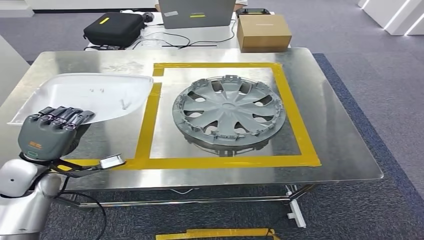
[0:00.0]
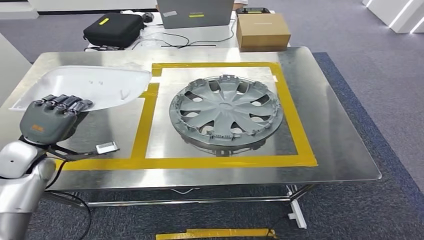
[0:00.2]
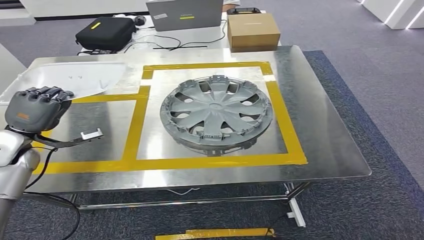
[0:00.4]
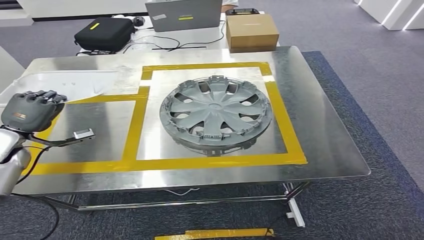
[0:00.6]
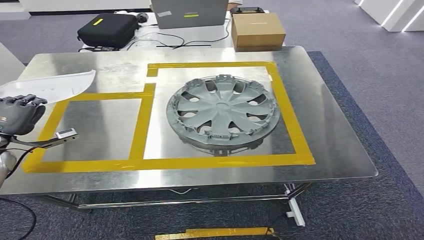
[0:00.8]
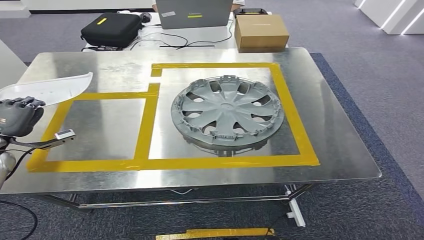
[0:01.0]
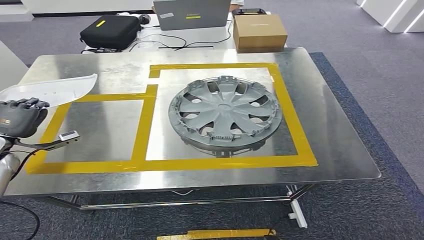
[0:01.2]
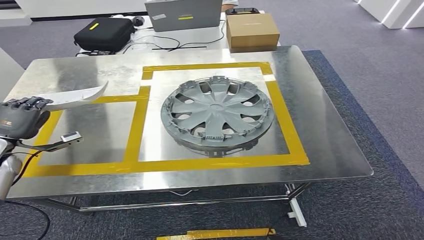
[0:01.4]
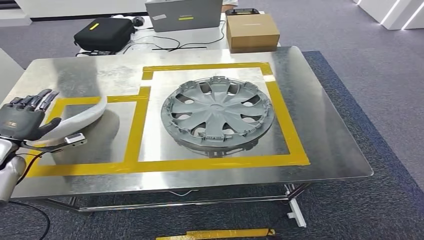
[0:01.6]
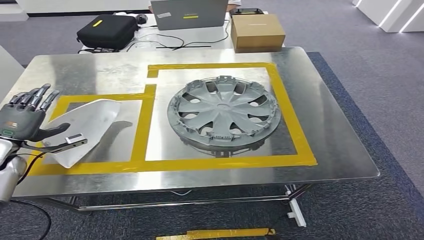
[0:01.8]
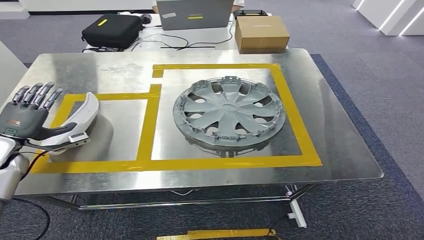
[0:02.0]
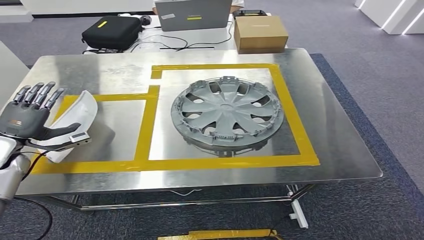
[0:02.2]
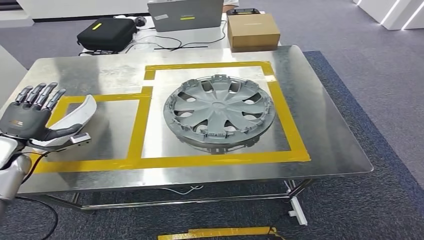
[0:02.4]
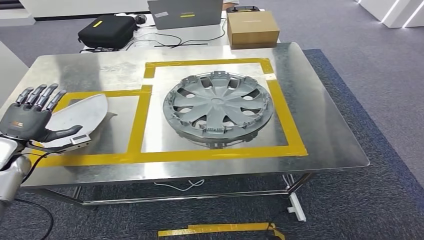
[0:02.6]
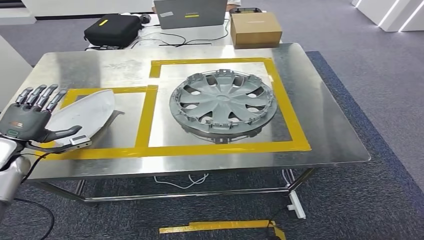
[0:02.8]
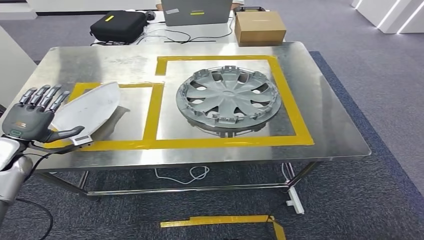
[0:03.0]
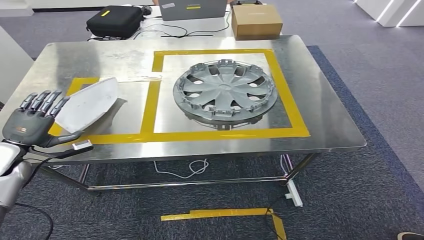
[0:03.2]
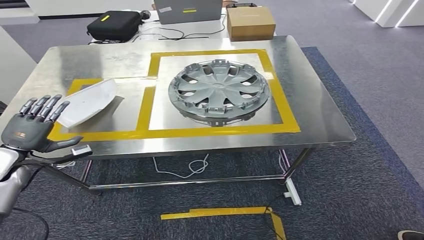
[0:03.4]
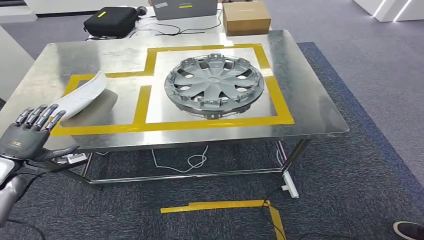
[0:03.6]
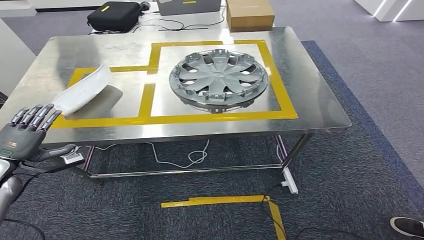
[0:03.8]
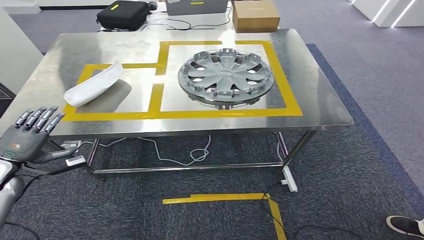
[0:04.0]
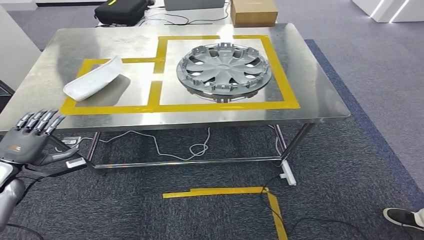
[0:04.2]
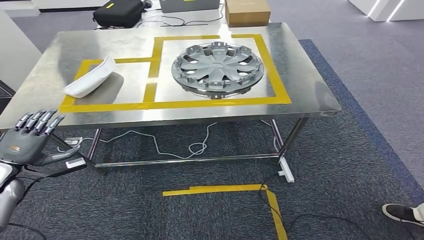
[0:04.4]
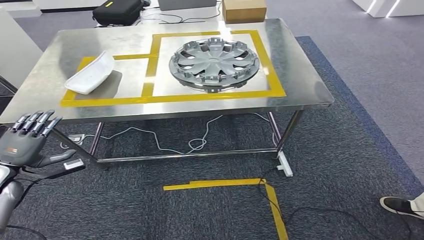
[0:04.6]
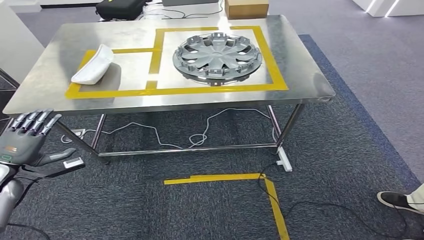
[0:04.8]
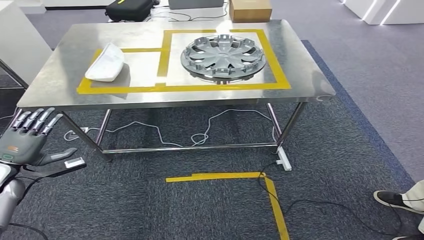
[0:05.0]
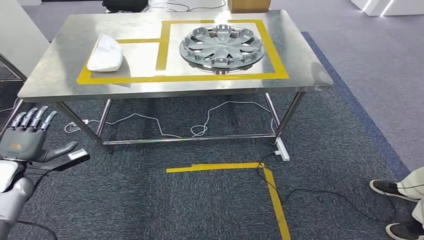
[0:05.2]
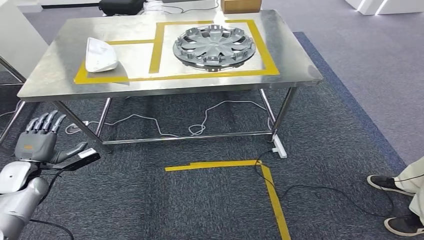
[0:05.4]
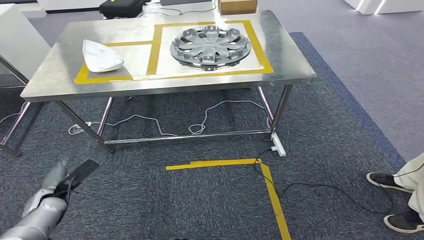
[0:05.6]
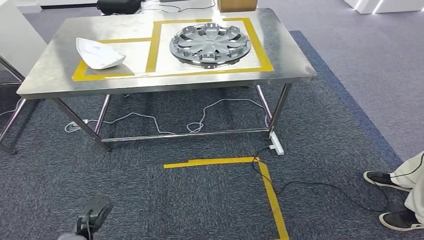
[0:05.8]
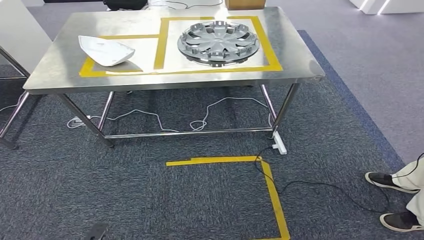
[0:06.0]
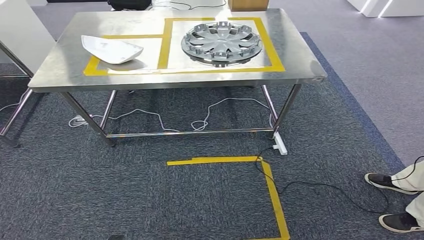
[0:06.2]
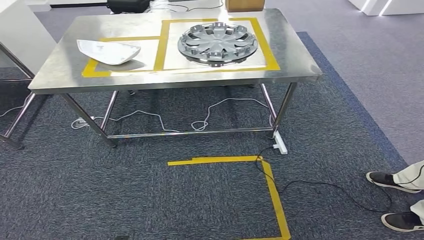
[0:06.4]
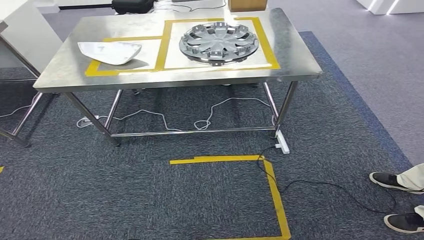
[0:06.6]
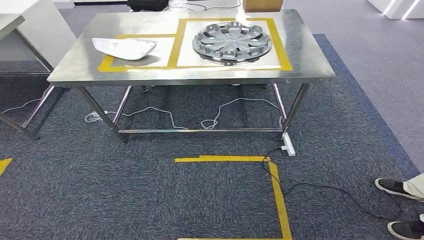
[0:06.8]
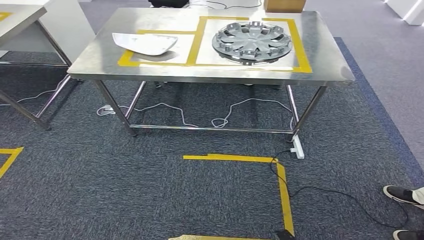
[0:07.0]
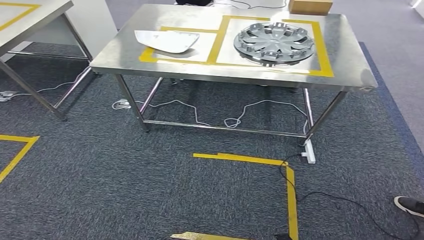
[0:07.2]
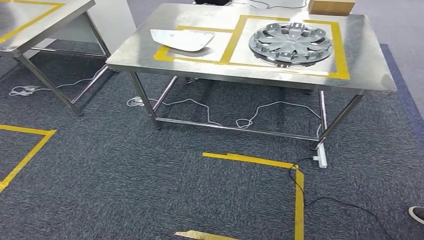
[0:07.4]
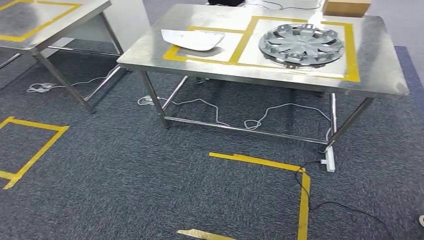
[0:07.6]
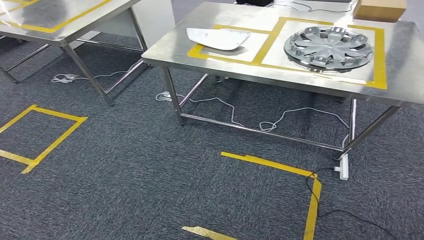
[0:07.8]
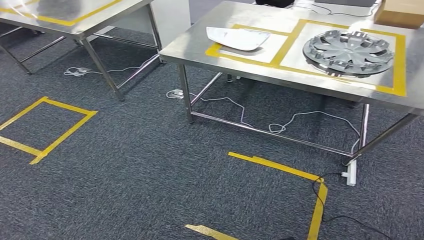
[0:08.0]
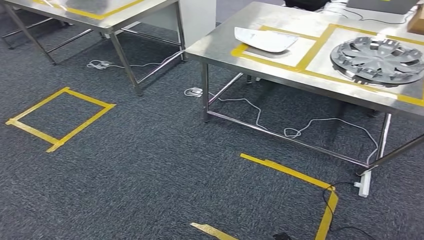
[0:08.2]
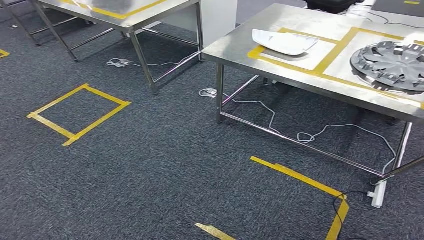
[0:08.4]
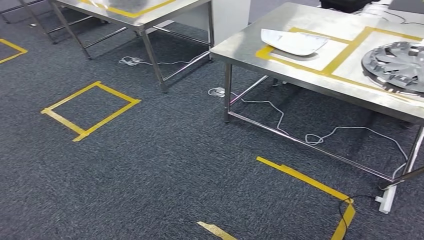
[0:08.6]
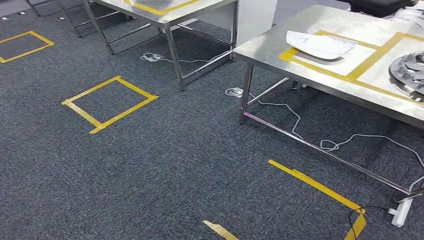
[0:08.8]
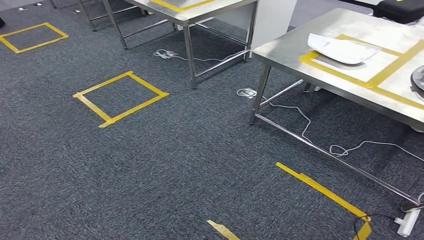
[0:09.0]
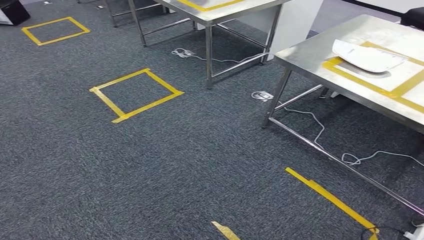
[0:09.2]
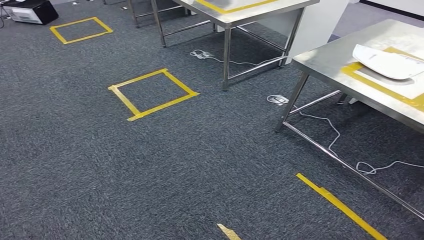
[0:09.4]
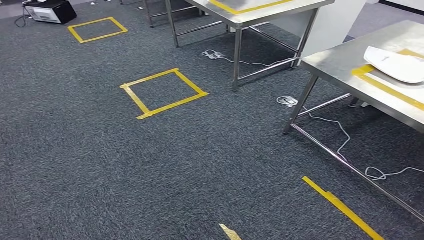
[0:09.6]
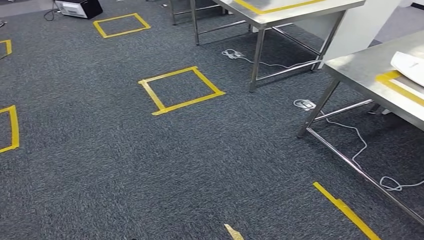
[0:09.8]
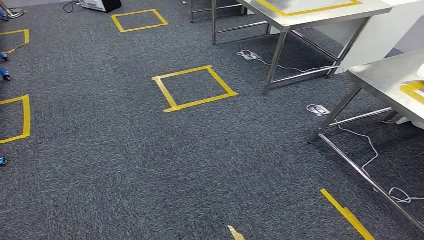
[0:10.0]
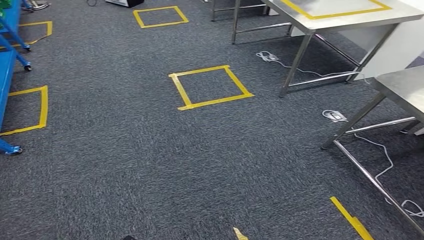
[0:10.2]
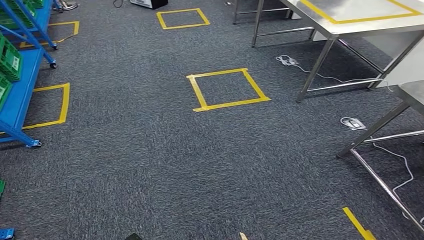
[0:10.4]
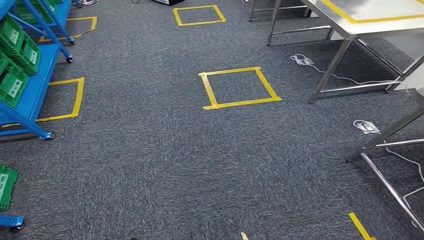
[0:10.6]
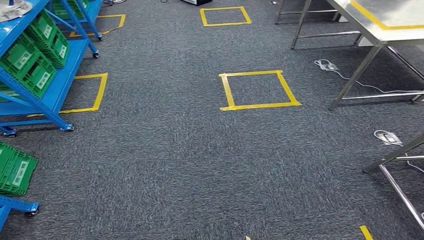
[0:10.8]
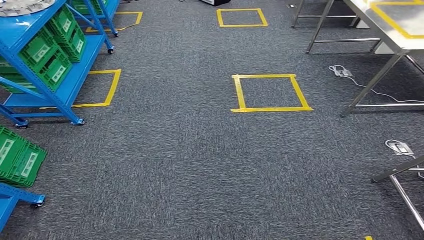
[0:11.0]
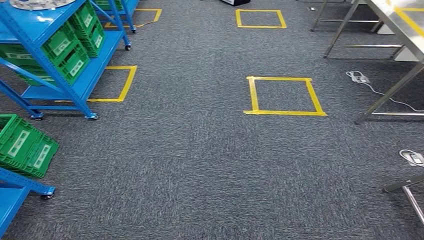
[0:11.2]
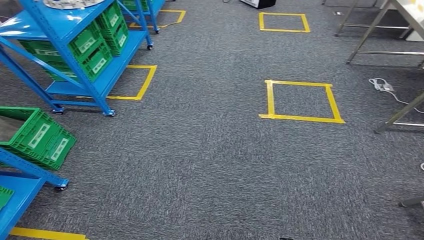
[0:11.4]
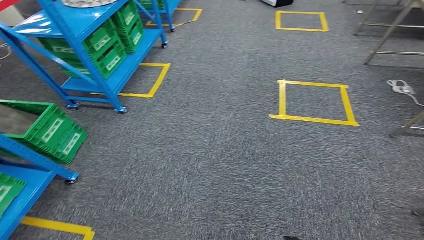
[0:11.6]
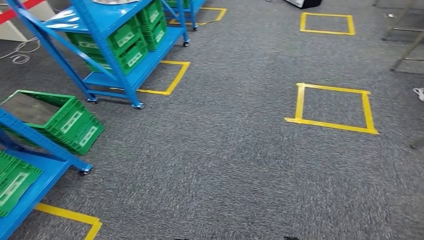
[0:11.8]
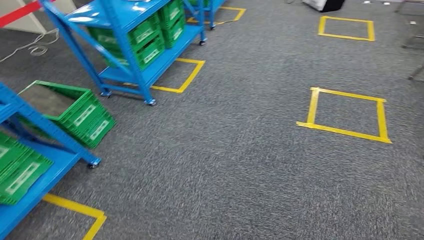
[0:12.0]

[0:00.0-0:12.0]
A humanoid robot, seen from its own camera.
Step, 0:00.0 to 0:02.8: Insert the small component into the corresponding slot on the workbench.

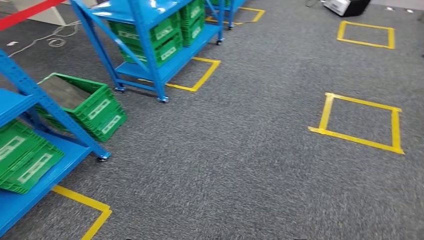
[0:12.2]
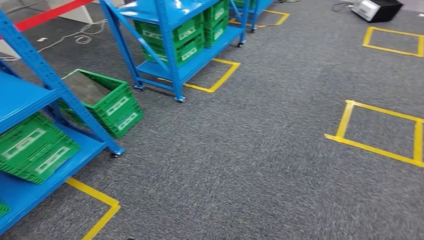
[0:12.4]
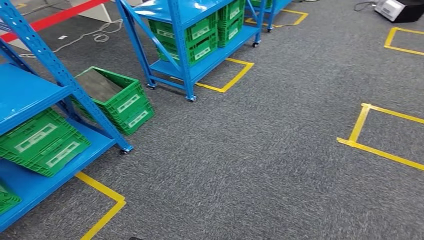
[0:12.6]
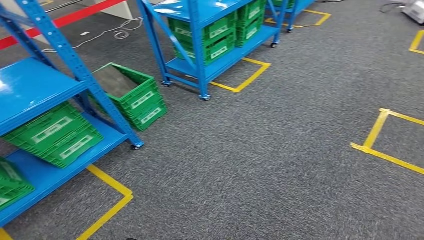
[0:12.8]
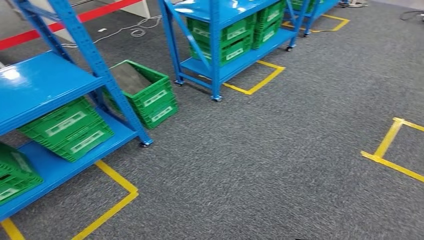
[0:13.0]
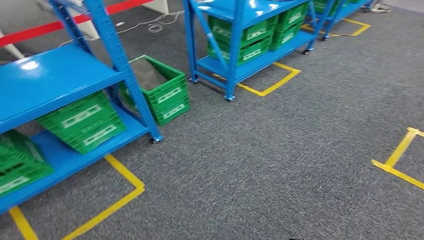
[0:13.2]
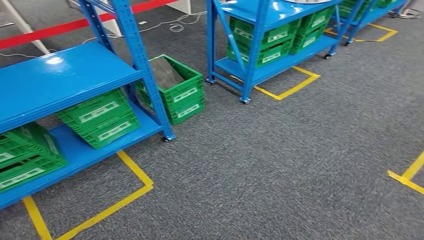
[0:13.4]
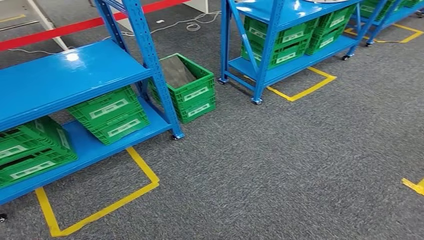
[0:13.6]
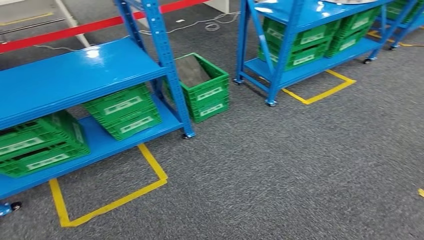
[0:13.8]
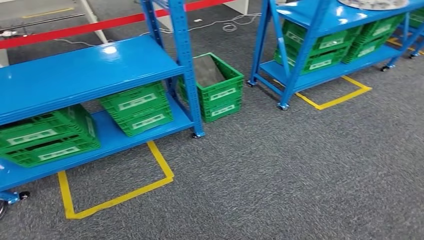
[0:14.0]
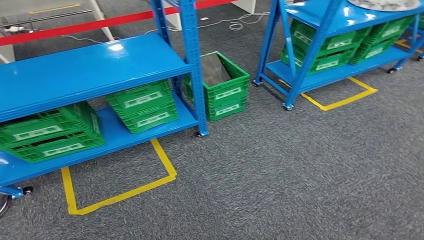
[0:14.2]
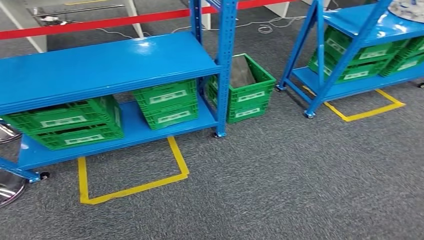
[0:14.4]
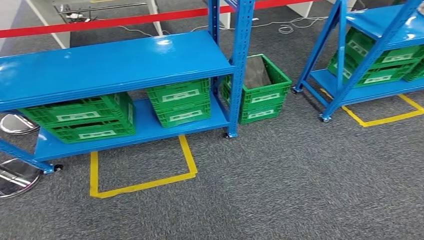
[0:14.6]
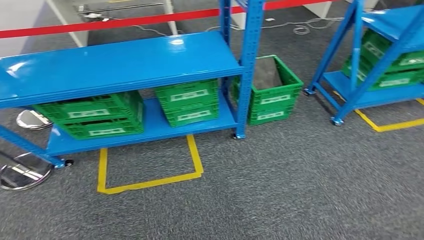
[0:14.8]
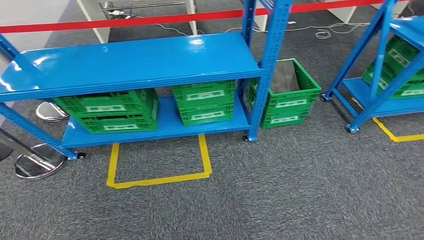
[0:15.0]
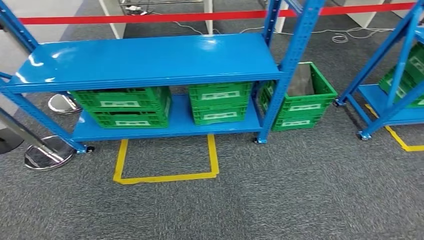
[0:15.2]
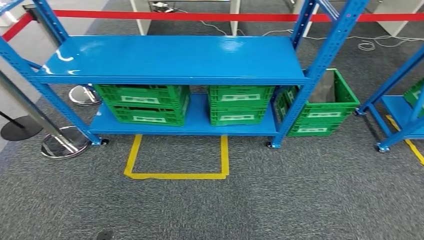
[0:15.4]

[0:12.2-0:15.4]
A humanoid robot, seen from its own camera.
Step, 0:12.2 to 0:15.4: Return to the initial position at the workbench.
